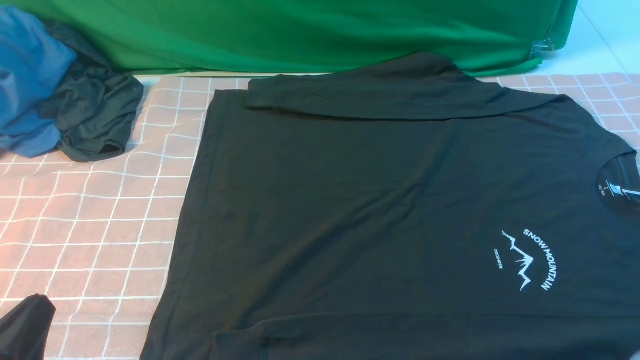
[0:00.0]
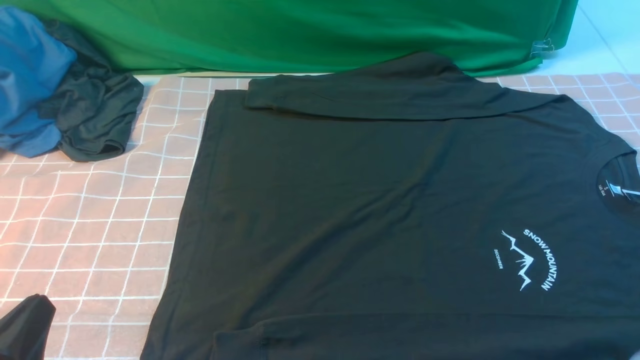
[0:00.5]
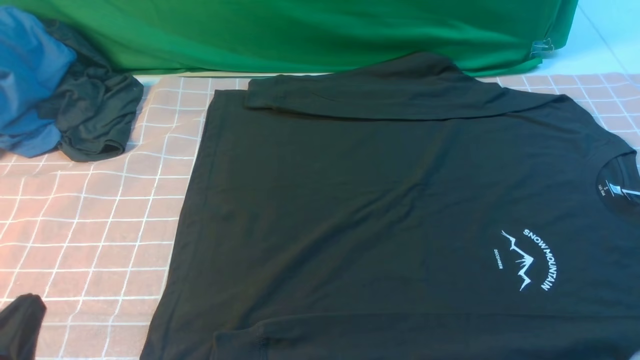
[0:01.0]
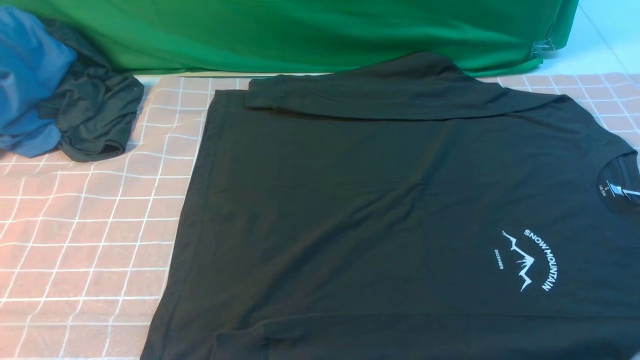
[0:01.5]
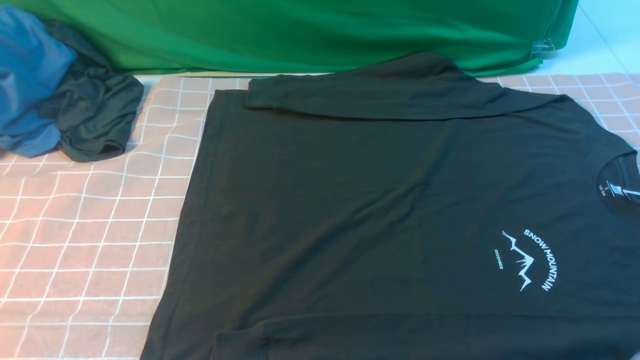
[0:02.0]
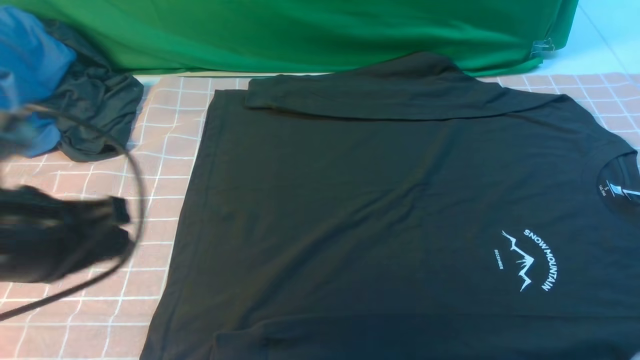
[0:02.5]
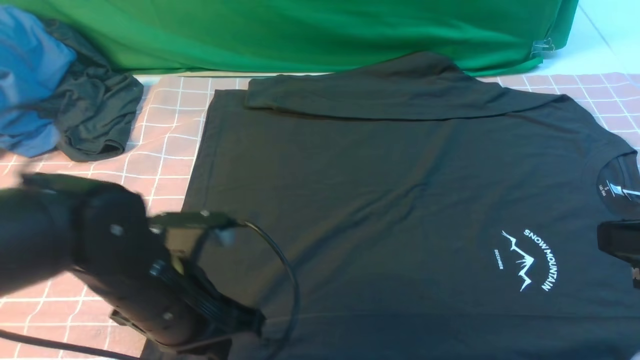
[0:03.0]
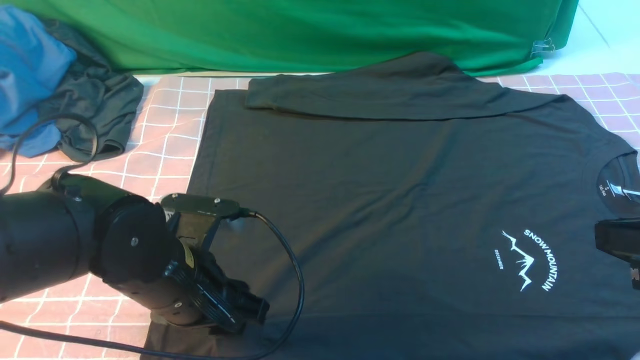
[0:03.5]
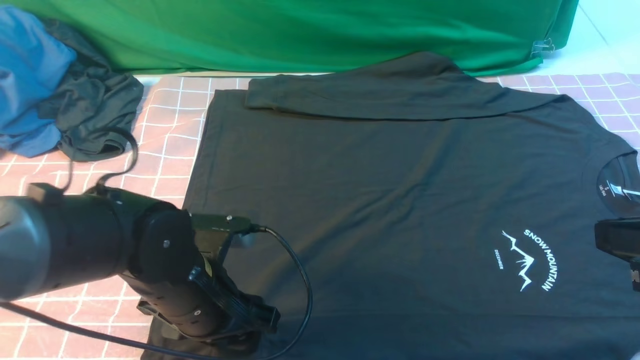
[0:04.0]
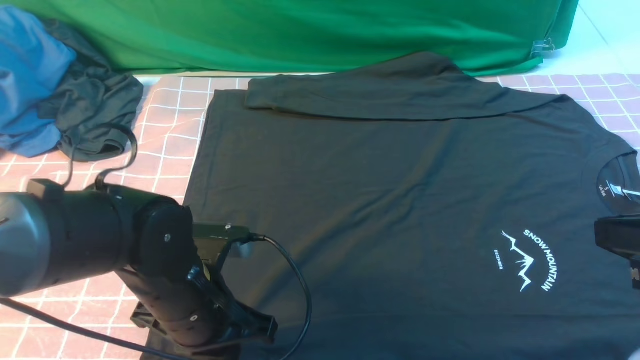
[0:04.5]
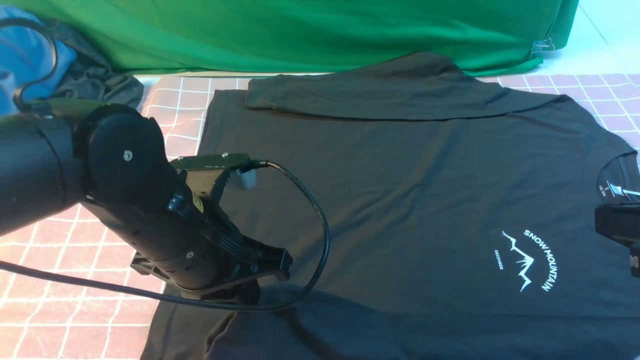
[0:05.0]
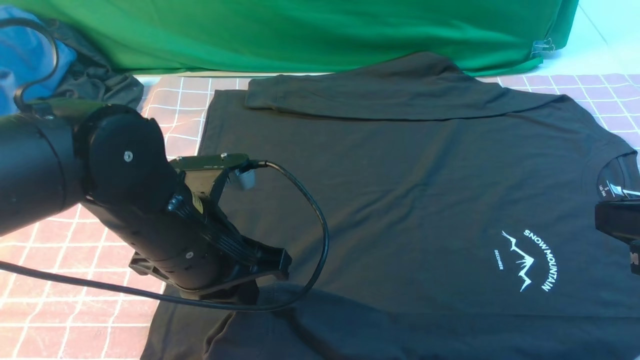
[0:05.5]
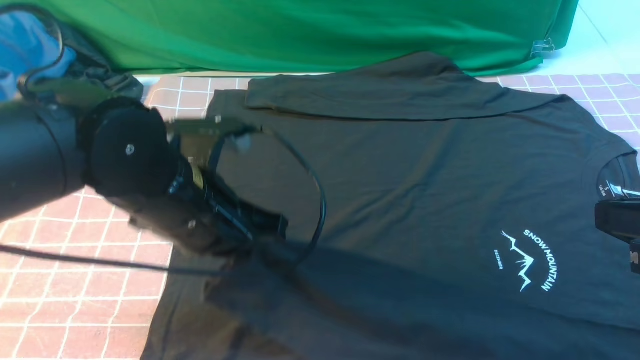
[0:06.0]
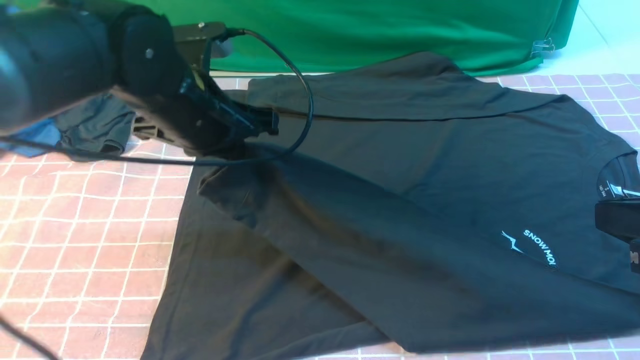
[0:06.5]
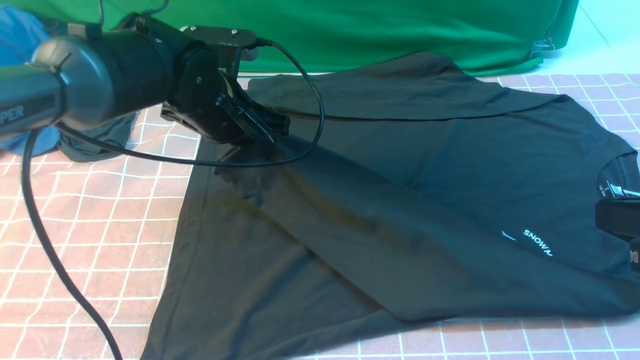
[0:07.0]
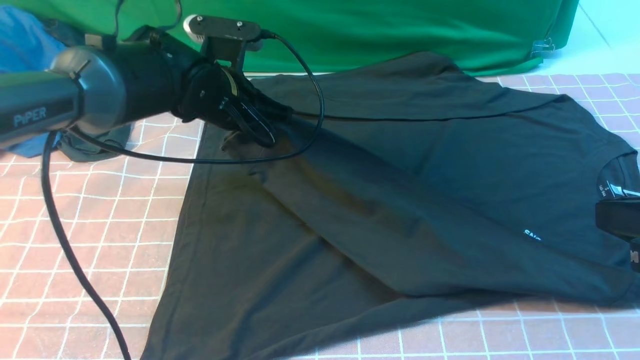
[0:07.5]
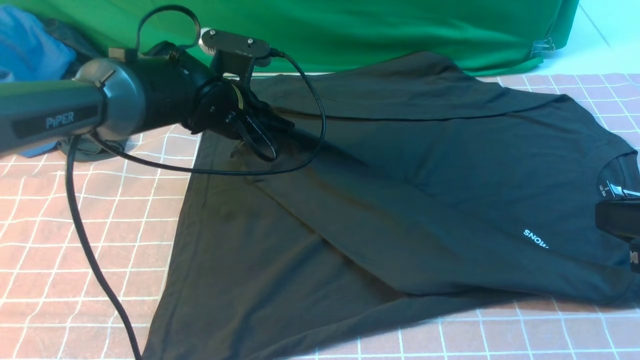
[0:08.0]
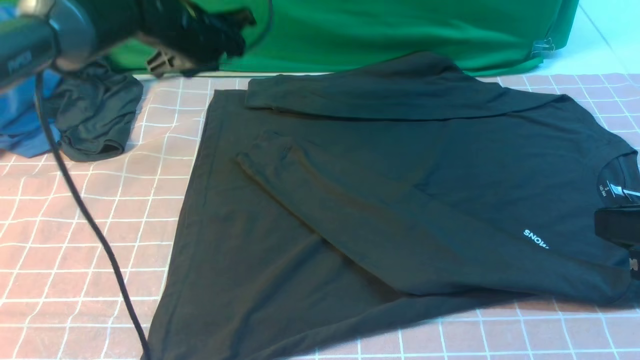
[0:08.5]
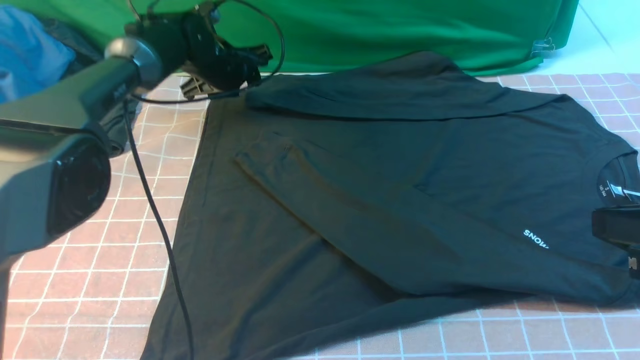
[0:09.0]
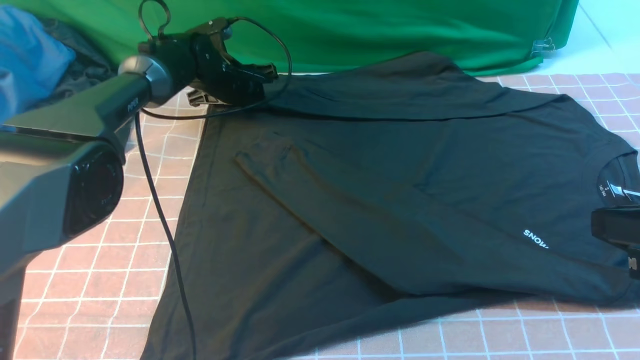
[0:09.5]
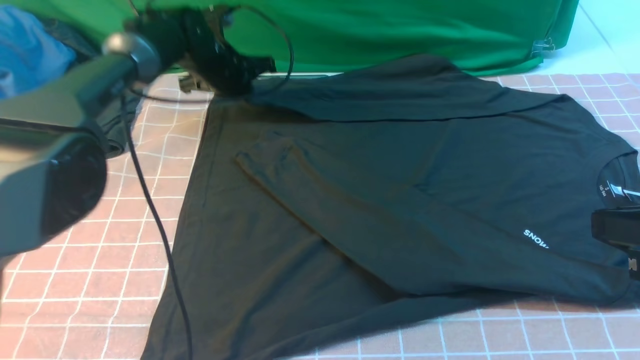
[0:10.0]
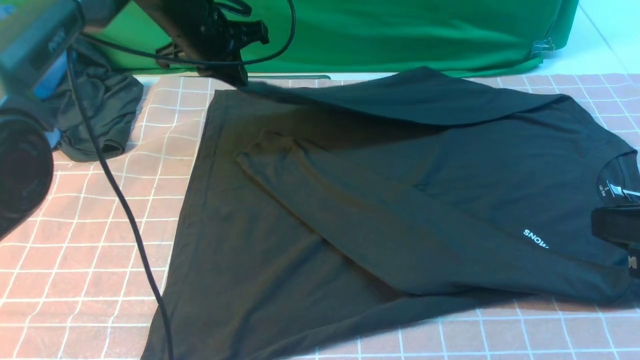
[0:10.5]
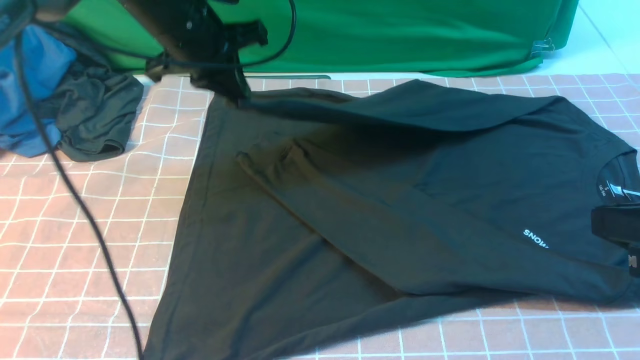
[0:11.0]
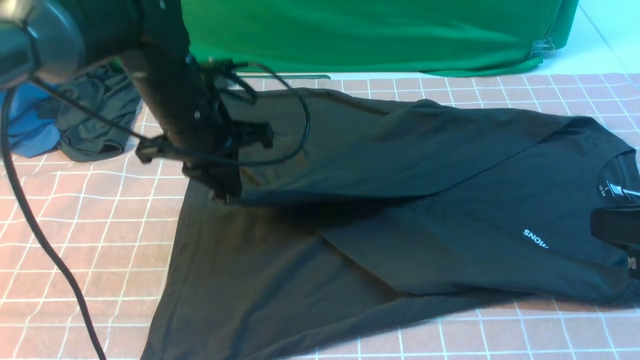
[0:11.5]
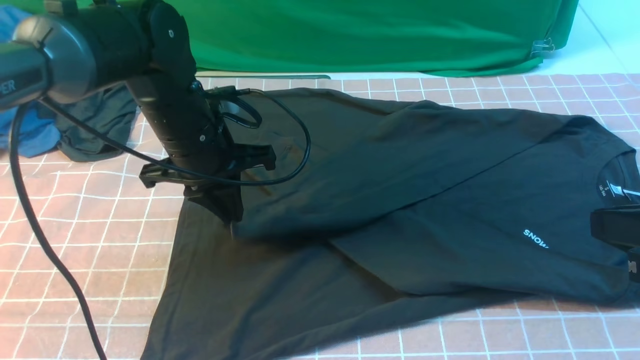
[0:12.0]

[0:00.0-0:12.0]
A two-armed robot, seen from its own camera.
Step, 0:00.0 to 0:04.5: use the left arm to clamp the cuff closest to it.
Step, 0:05.0 to 0:08.0: use the left arm to drag and place the cuff at the centered position on the left edge of the fabric.
Step, 0:08.5 to 0:10.0: use the left arm to clamp the cuff farthest from it.
0:00.0 to 0:02.0: The left gripper travels upward by about 10 cm.
0:02.0 to 0:04.0: The left gripper goes about 25 cm forward, downward and to the right, and opens, while the right gripper travels forward and upward by roughly 10 cm, and closes up.
0:04.0 to 0:06.0: The left gripper heads upward, covering about 10 cm, and closes.
0:06.0 to 0:08.0: The left gripper travels forward by roughly 15 cm, and opens up.
0:08.0 to 0:10.0: The left gripper moves forward, roughly 10 cm, and closes up.
0:10.0 to 0:12.0: The left gripper shifts approximately 20 cm backward.

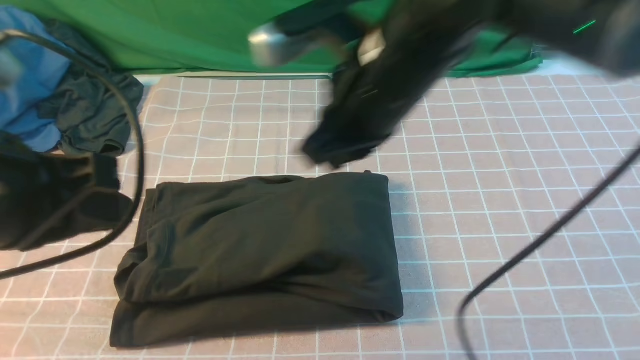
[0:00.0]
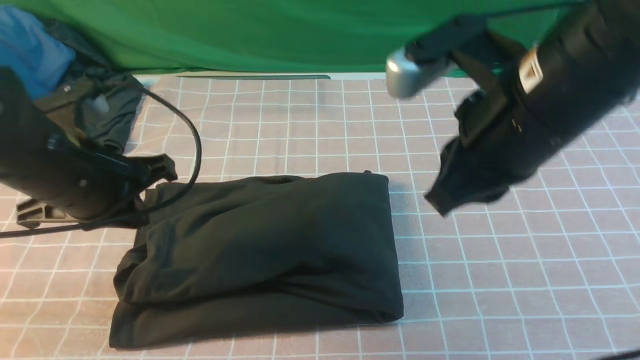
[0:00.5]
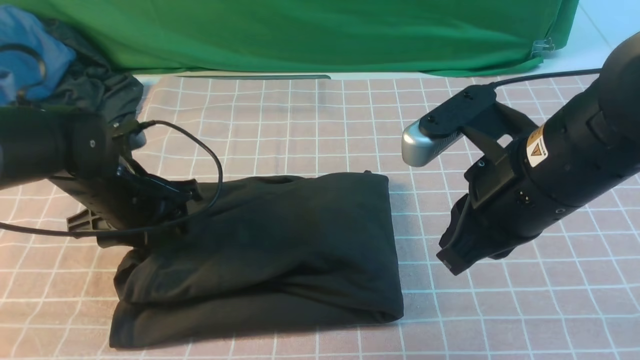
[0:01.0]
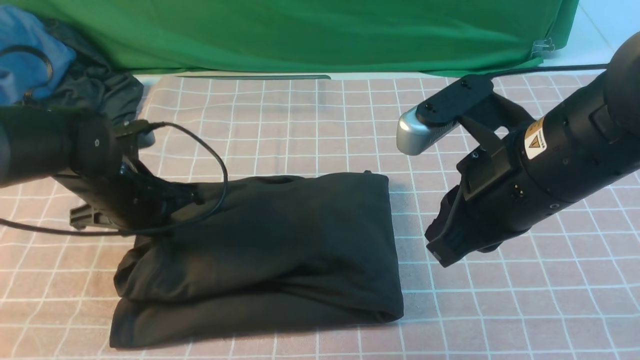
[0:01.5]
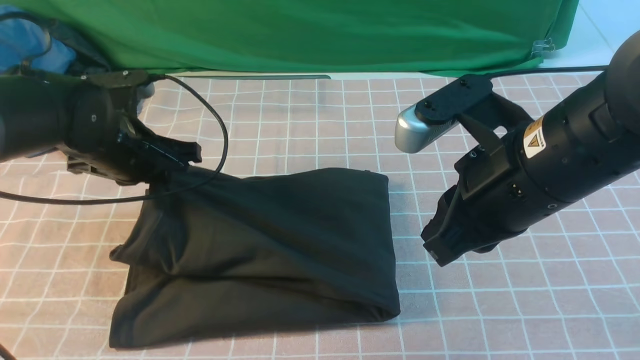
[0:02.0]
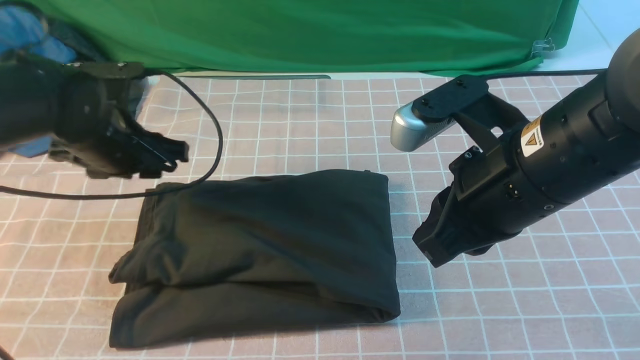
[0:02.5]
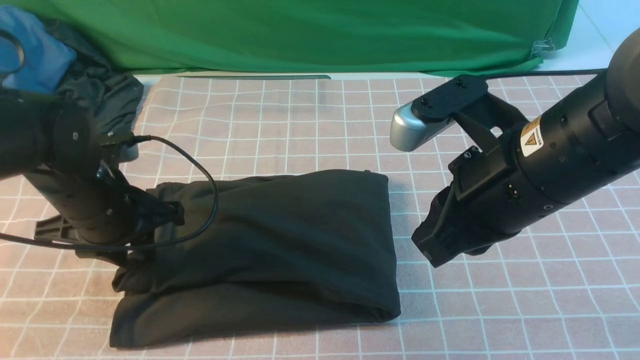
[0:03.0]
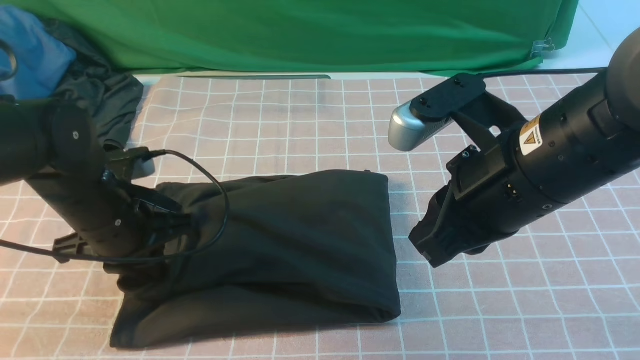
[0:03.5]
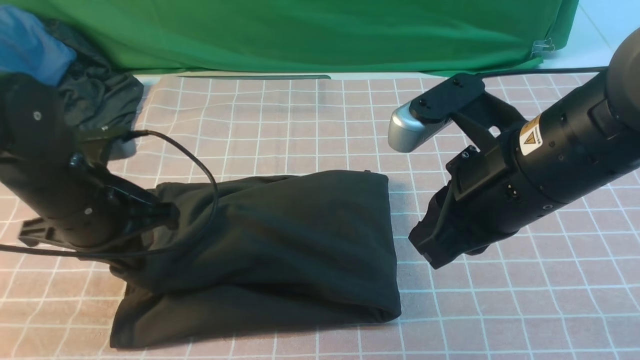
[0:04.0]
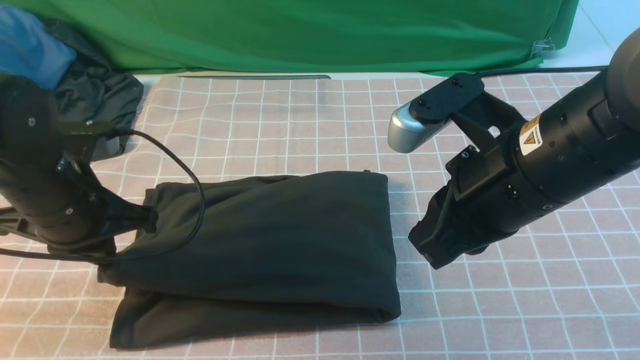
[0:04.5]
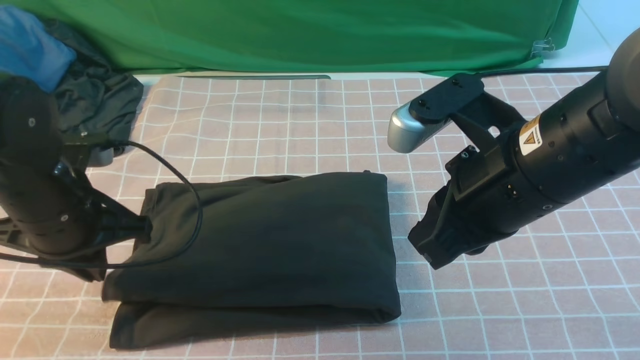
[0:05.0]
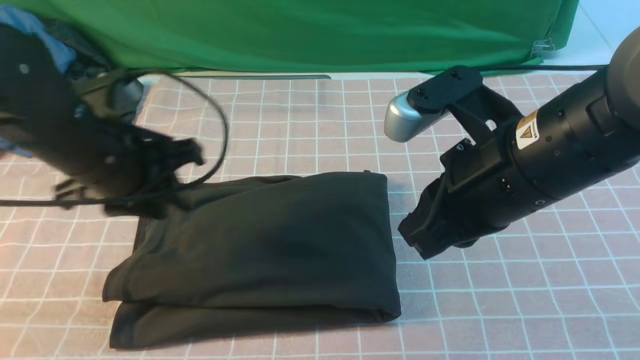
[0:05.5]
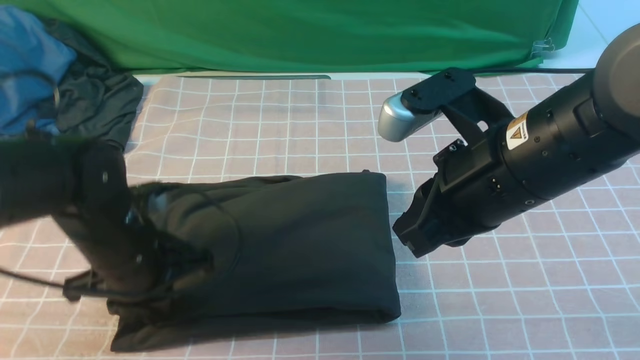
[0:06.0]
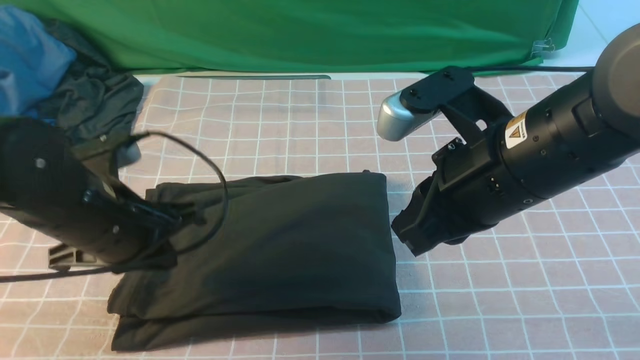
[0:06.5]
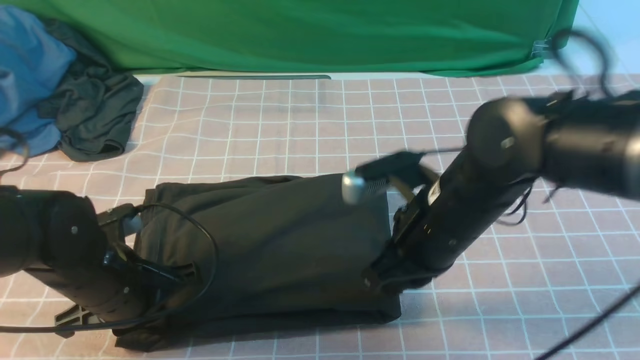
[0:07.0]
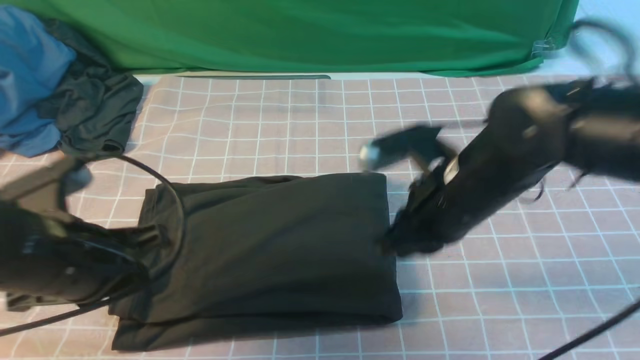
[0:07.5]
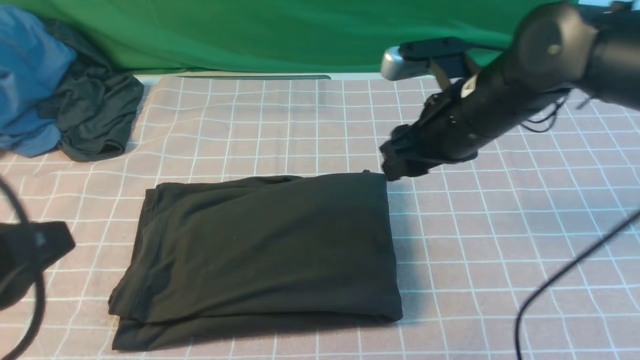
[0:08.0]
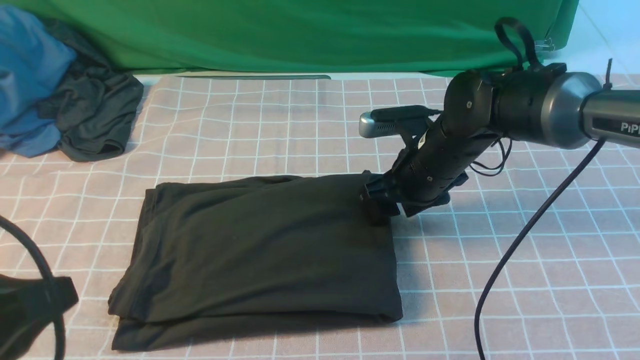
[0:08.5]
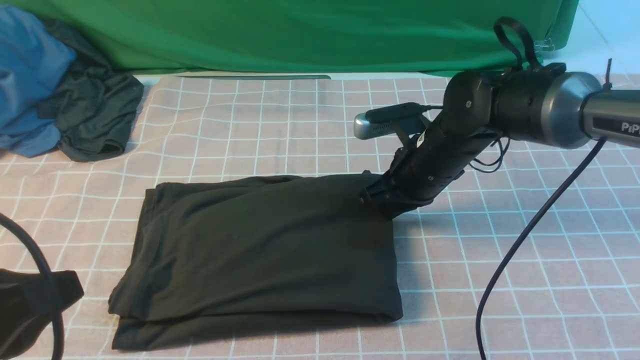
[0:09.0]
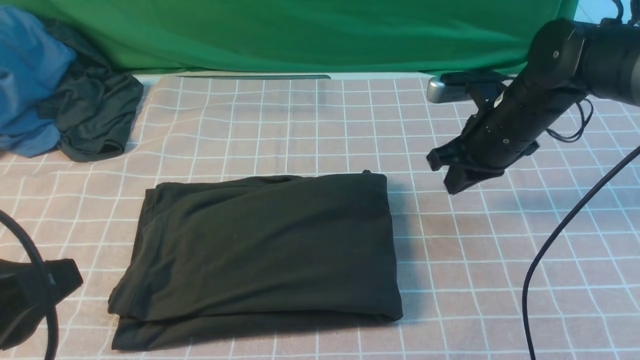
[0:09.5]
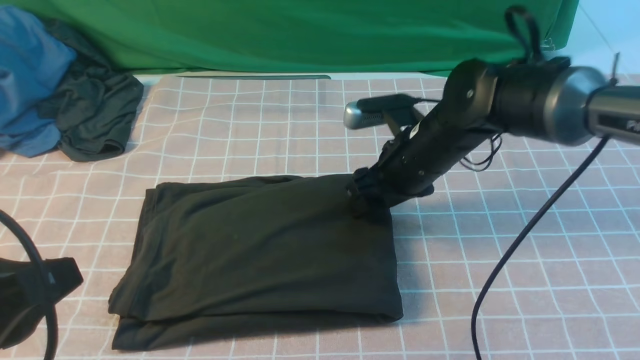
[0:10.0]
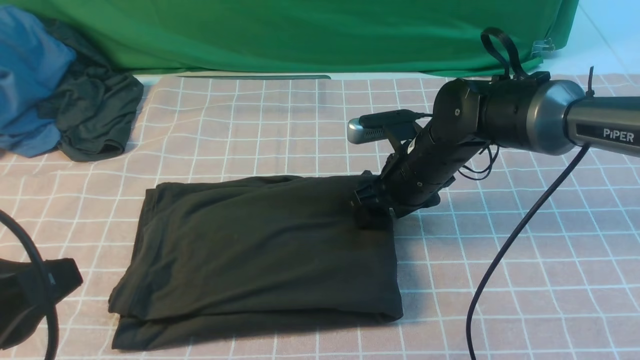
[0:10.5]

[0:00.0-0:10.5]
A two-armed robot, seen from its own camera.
0:00.0 to 0:02.0: The left gripper shifts some 20 cm forward and downward, and opens, then closes once more. Meanwhile the right gripper travels to the right and backward by roughly 10 cm.
0:02.0 to 0:04.0: The left gripper shifts about 10 cm backward, and opens, then closes once more.
0:04.0 to 0:06.5: The left gripper opens, then closes once more.
0:06.5 to 0:08.5: The right gripper travels forward and downward by approximately 20 cm, and opens its fingers. The left gripper goes roughly 20 cm backward and upward.
0:08.5 to 0:10.5: The right gripper closes, then opens again.
